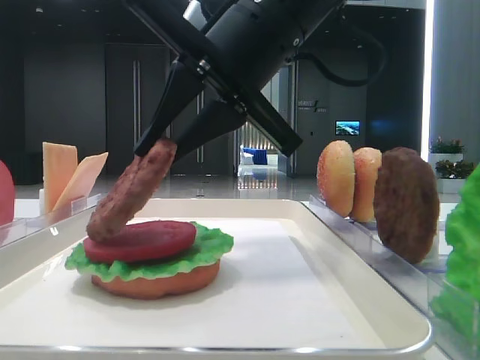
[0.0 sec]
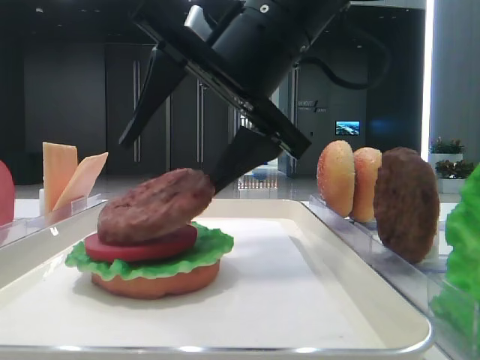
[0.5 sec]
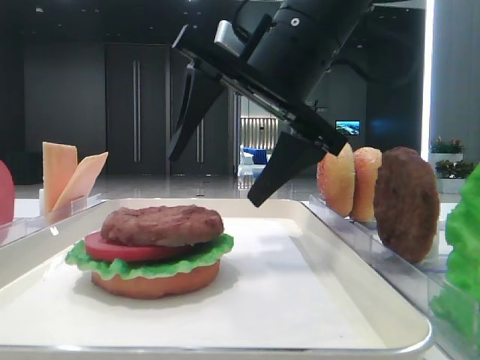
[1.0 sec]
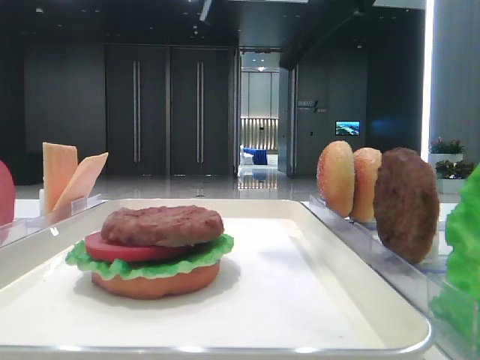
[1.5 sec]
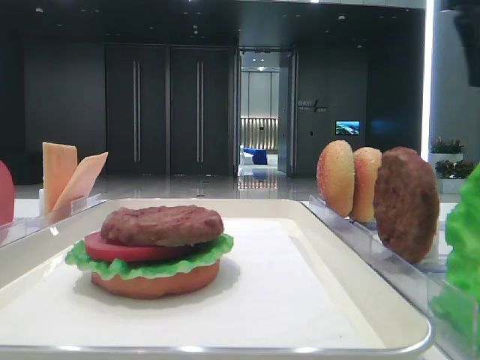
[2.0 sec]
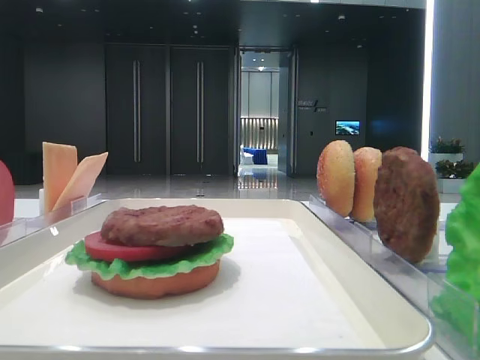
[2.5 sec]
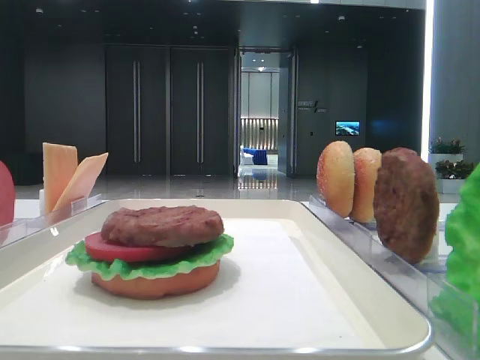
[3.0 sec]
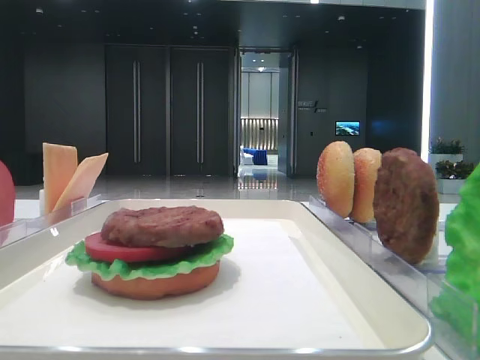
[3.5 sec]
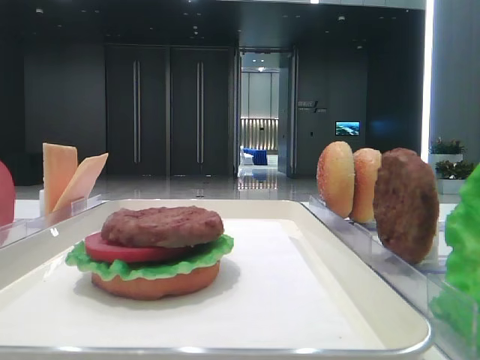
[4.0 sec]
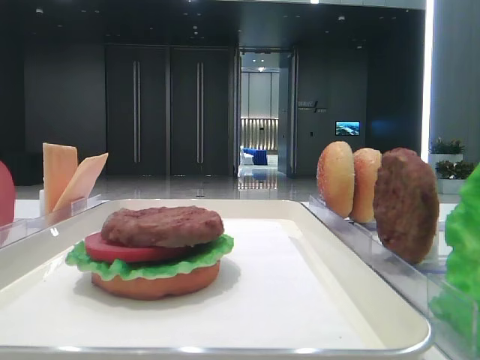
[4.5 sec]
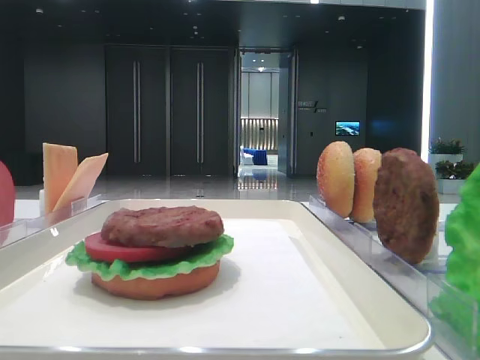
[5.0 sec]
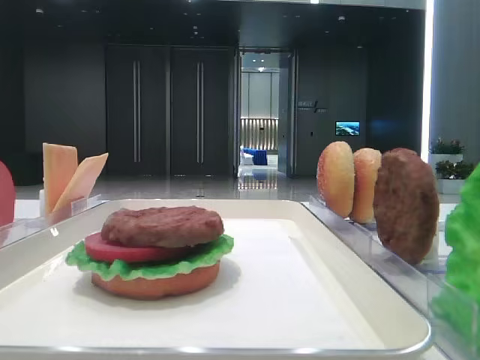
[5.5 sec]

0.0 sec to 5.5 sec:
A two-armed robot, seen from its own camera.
0.0 sec to 2.0 sec: The right gripper heads to the right and upward, covering about 25 cm, and opens its fingers.
2.0 sec to 3.5 sec: The right gripper travels backward by some 35 cm.
